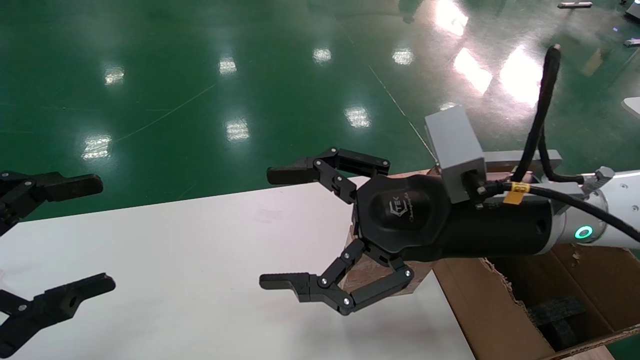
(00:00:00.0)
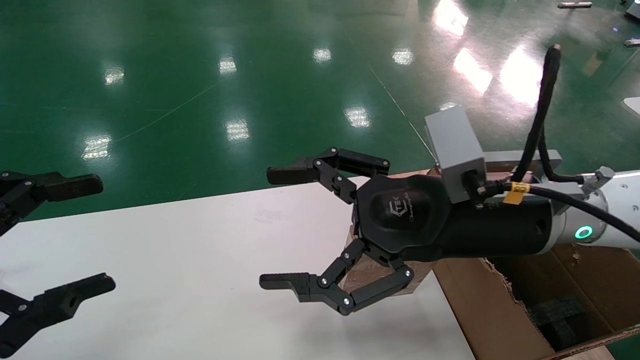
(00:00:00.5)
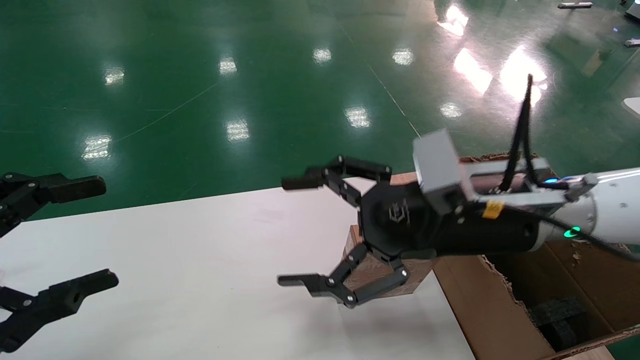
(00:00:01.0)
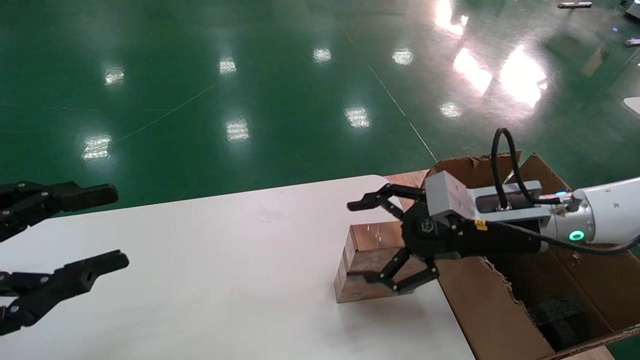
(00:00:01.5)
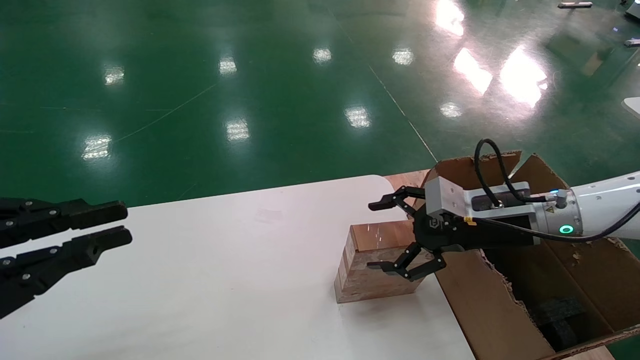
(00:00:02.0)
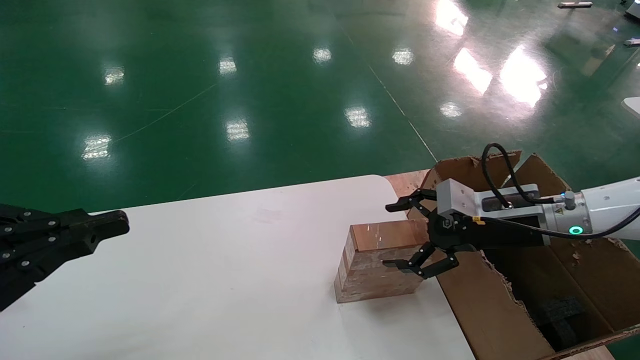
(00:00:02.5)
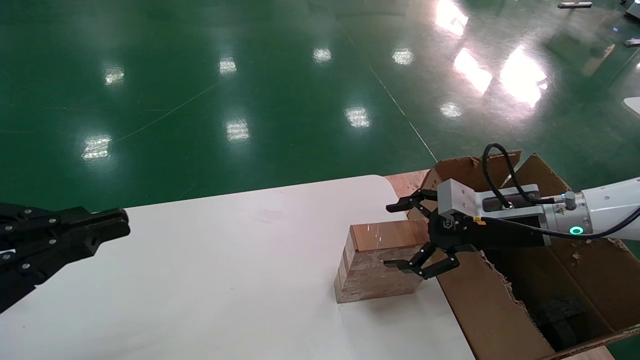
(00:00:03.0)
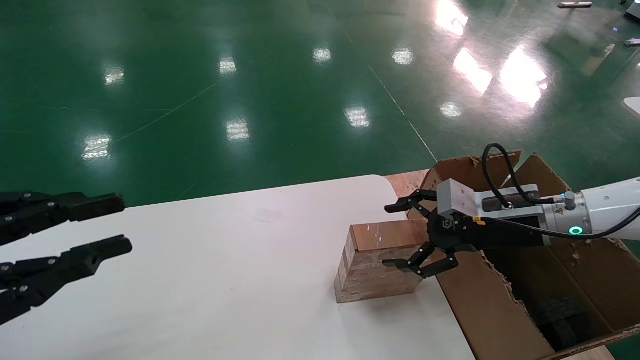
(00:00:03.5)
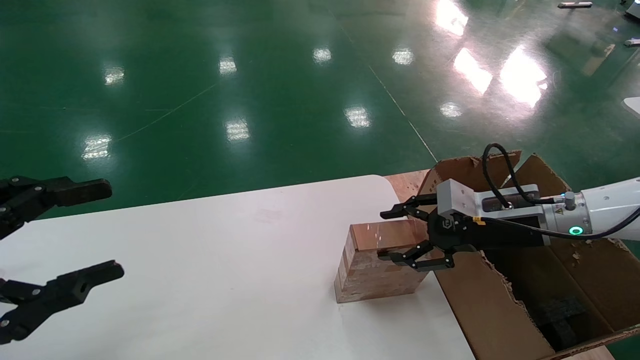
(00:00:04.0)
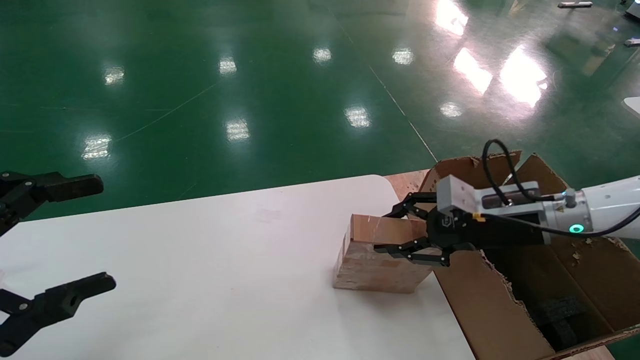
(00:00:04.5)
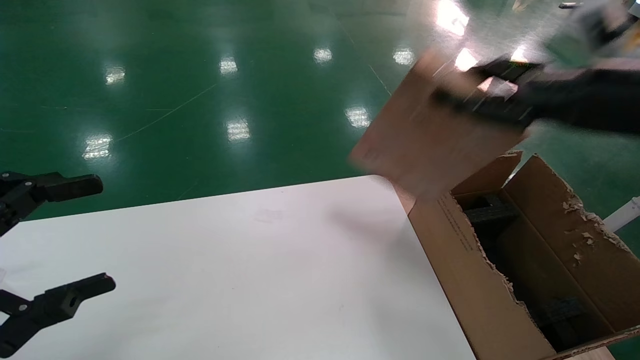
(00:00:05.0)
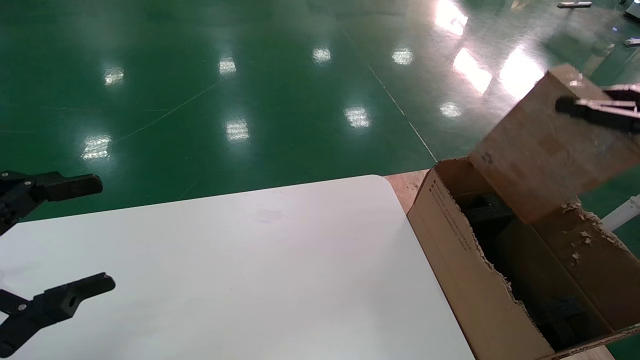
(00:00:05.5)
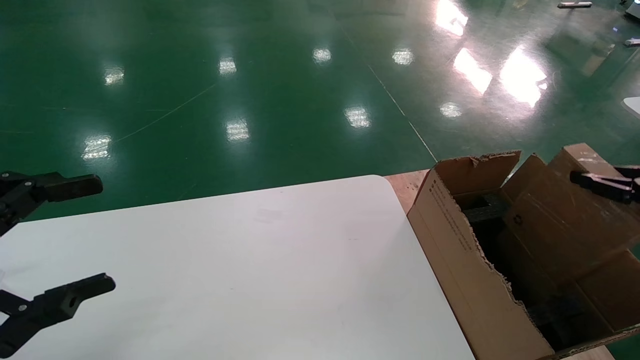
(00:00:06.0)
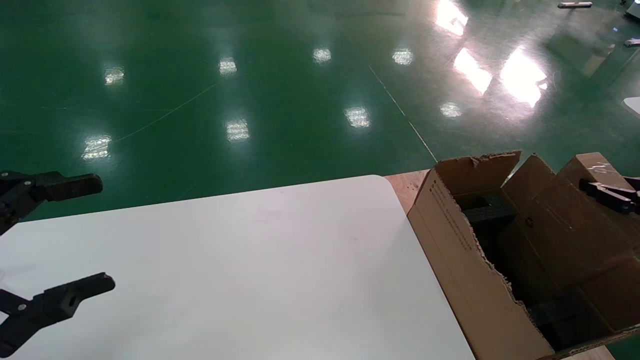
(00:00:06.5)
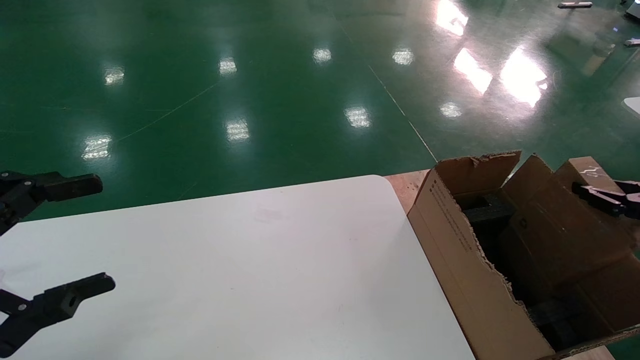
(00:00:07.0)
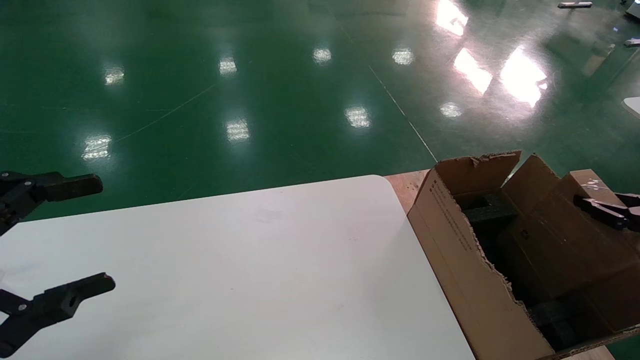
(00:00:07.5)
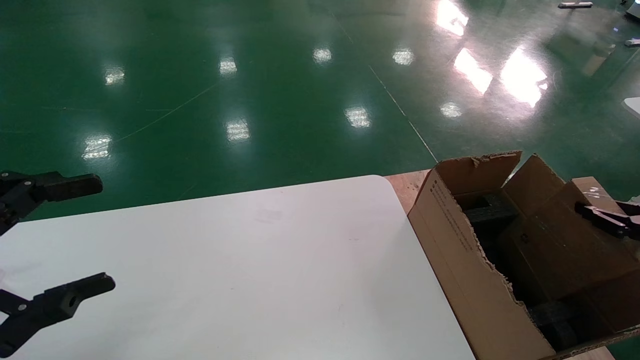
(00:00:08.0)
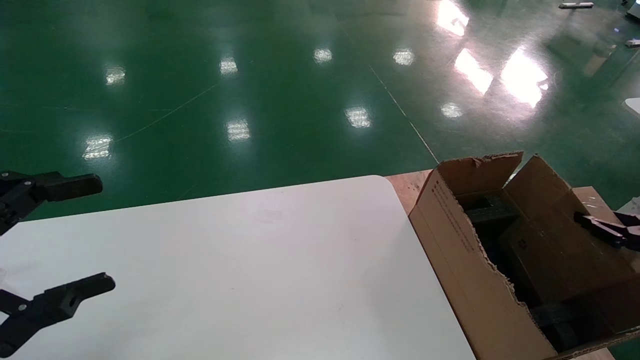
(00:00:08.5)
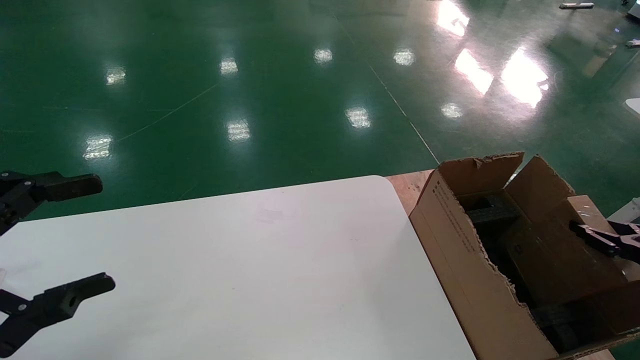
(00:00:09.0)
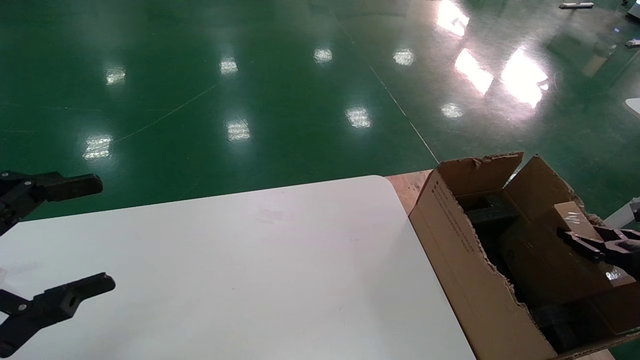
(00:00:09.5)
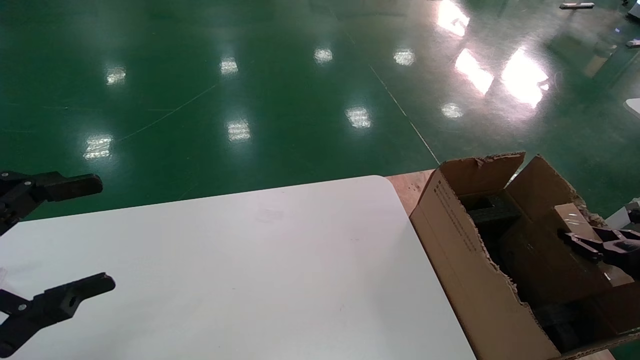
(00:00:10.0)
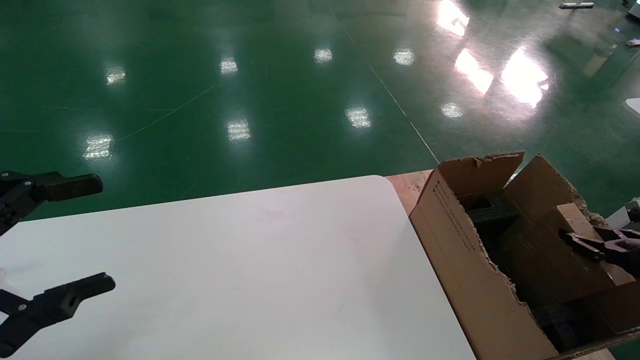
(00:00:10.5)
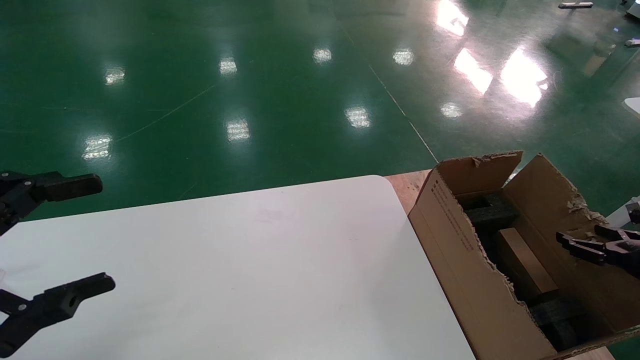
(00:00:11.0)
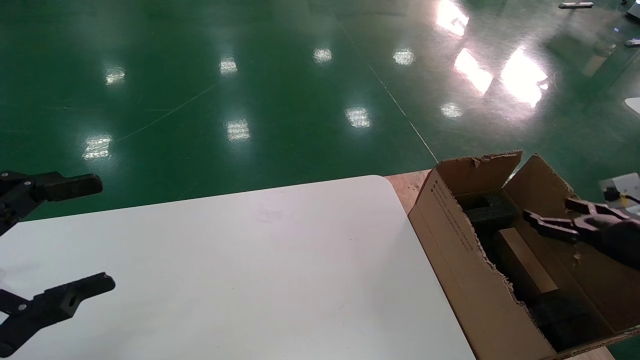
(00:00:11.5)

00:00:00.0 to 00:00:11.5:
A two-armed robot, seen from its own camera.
Task of the whole recording: put the box on the table into the big box.
Step, 00:00:01.5 to 00:00:04.0: Pick up the mouse and the power cord paper box.
Step, 00:00:04.5 to 00:00:11.0: Place the mouse and the power cord paper box into the container.
00:00:00.0 to 00:00:02.0: The right gripper shifts roughly 15 cm to the right, forward and downward; the left gripper closes up.
00:00:02.0 to 00:00:04.0: The right gripper closes up, while the left gripper opens its fingers.
00:00:04.0 to 00:00:06.0: The right gripper travels to the right and backward by some 20 cm, and closes up; the left gripper opens up.
00:00:06.0 to 00:00:07.5: The right gripper goes approximately 10 cm downward.
00:00:07.5 to 00:00:09.5: The right gripper goes approximately 10 cm downward.
00:00:09.5 to 00:00:11.5: The right gripper changes place by some 5 cm, and opens its fingers.

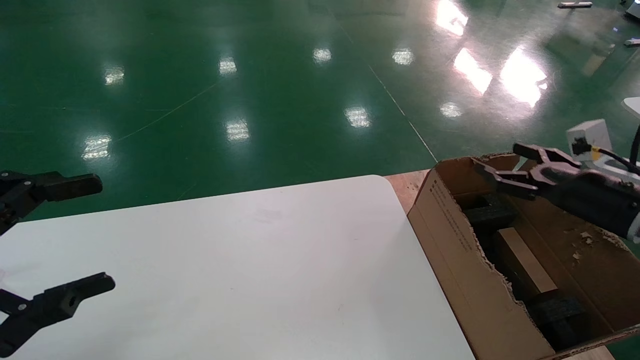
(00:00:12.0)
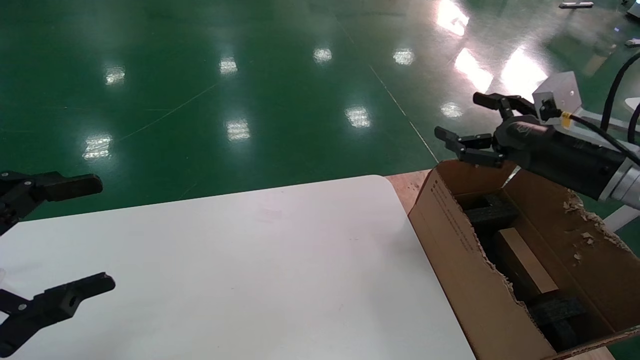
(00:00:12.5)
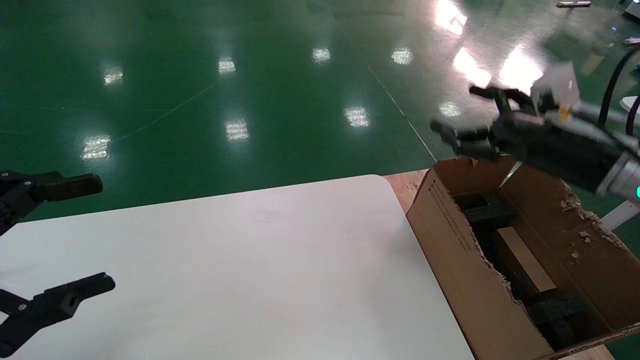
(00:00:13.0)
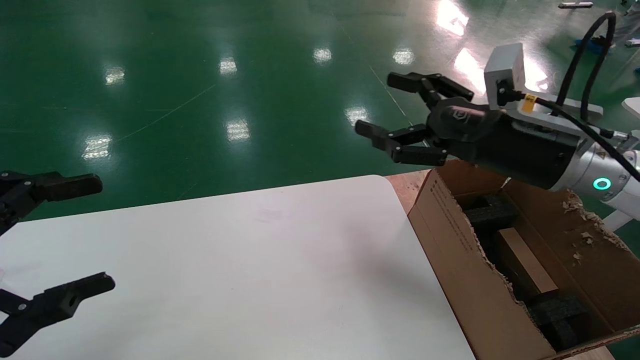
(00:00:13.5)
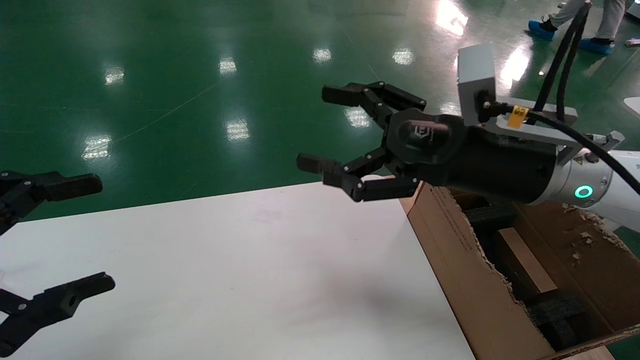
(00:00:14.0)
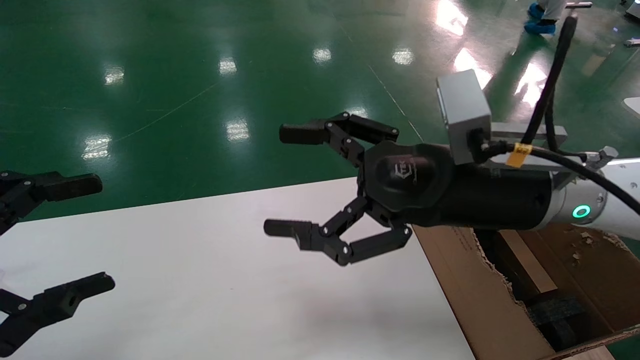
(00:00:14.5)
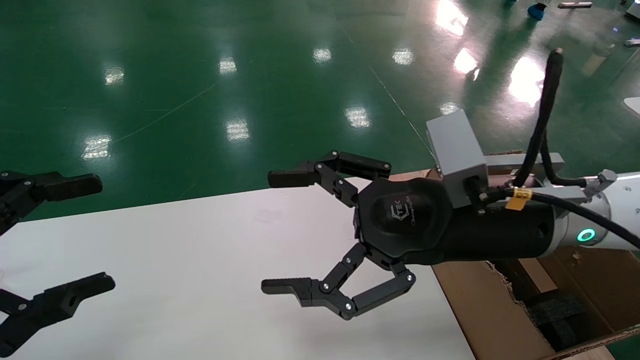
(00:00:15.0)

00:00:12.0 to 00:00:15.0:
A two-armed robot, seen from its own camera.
Task of the whole recording: put the box on the table into the big box.
00:00:12.0 to 00:00:13.5: The right gripper moves to the left and upward, approximately 20 cm.
00:00:13.5 to 00:00:15.0: The right gripper moves to the left and backward, some 10 cm.
